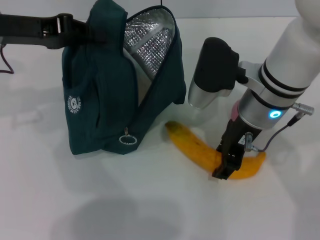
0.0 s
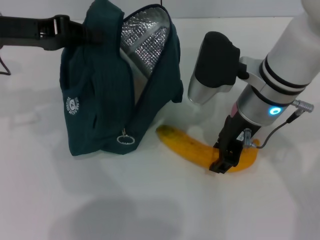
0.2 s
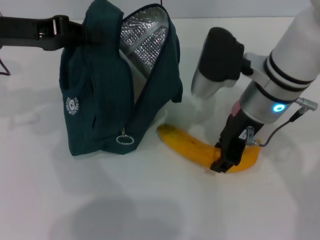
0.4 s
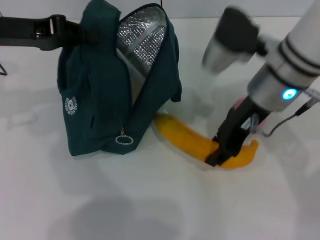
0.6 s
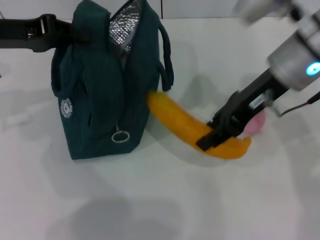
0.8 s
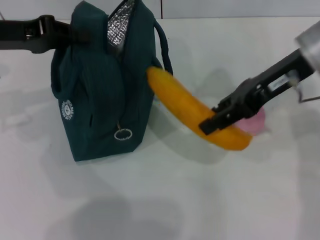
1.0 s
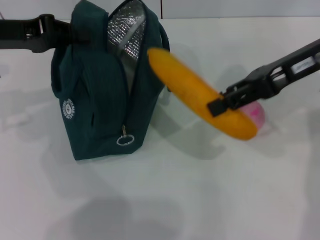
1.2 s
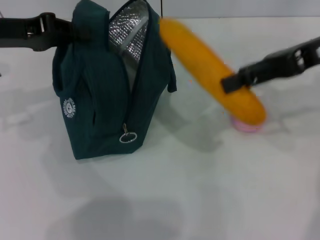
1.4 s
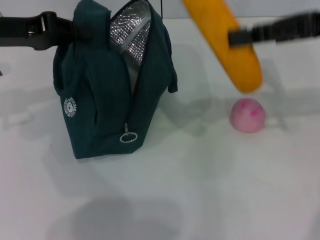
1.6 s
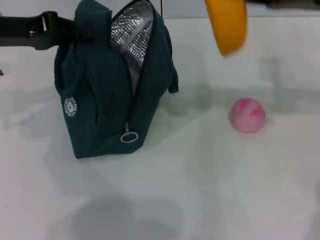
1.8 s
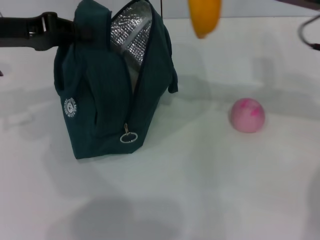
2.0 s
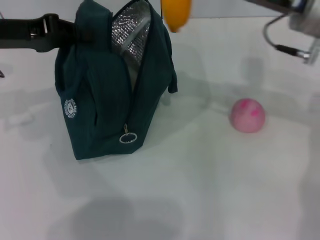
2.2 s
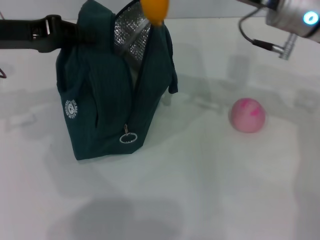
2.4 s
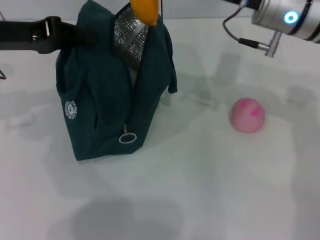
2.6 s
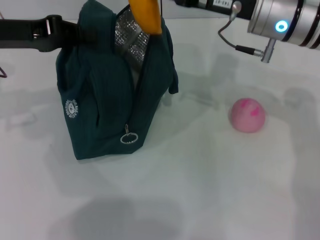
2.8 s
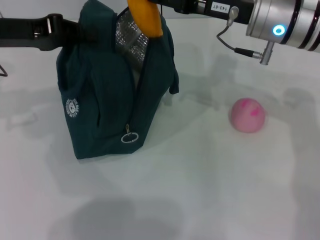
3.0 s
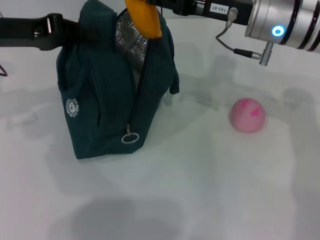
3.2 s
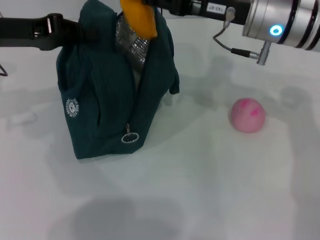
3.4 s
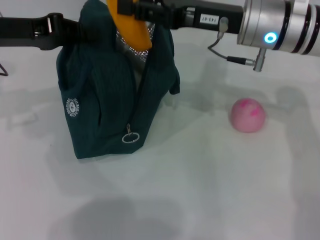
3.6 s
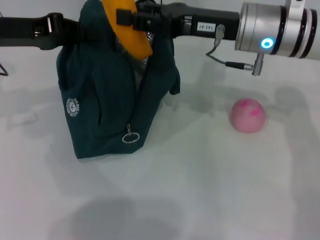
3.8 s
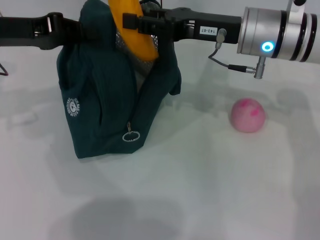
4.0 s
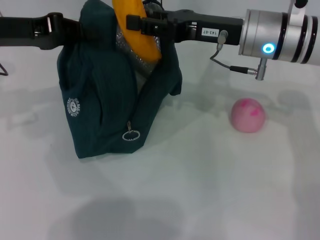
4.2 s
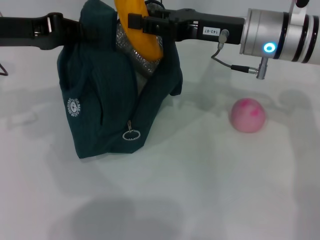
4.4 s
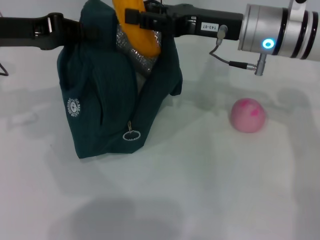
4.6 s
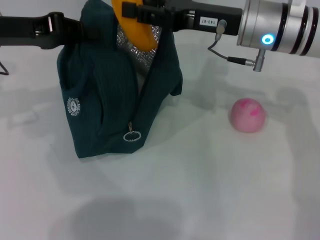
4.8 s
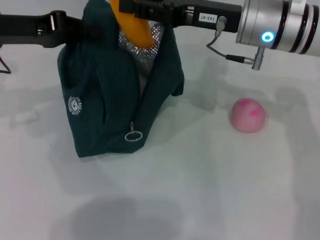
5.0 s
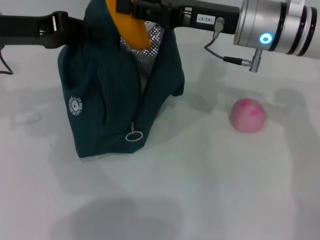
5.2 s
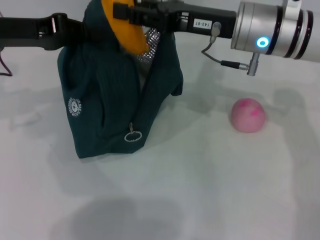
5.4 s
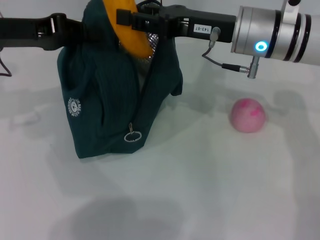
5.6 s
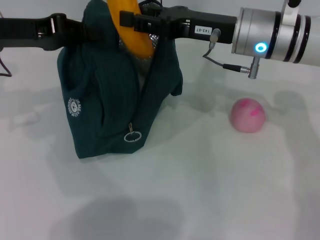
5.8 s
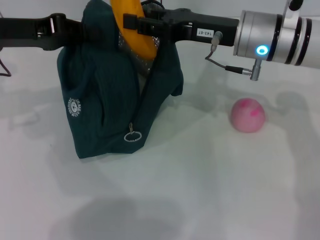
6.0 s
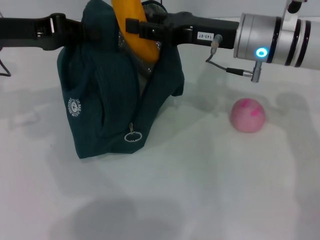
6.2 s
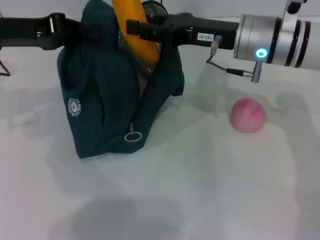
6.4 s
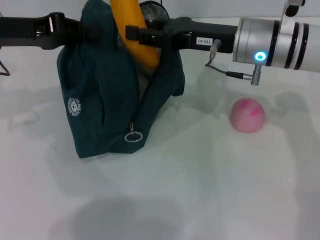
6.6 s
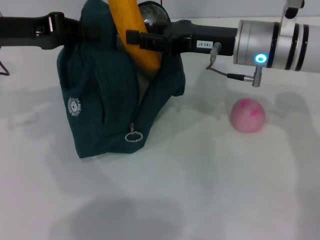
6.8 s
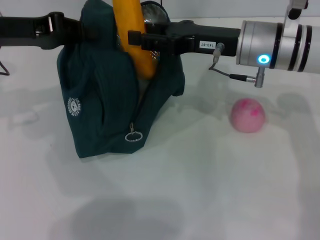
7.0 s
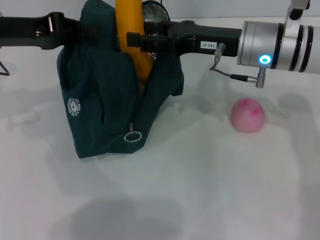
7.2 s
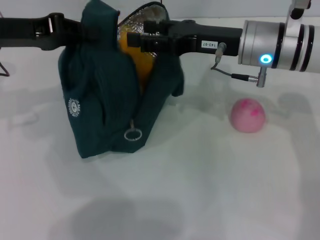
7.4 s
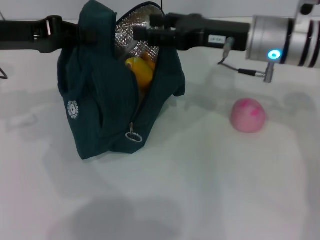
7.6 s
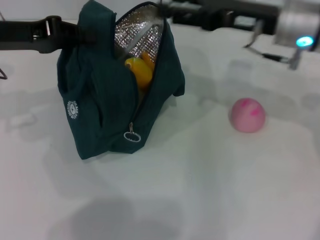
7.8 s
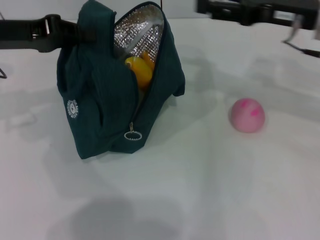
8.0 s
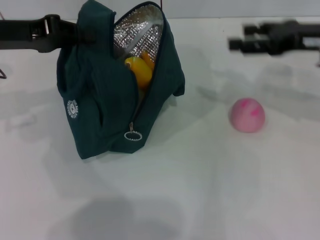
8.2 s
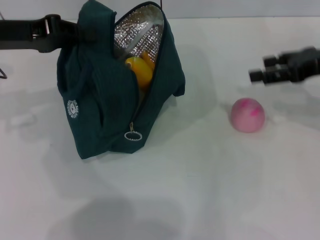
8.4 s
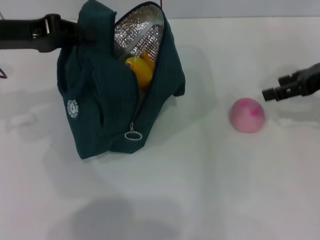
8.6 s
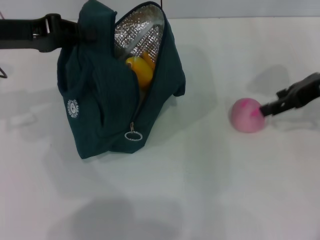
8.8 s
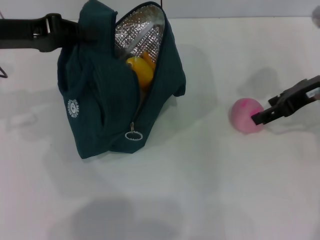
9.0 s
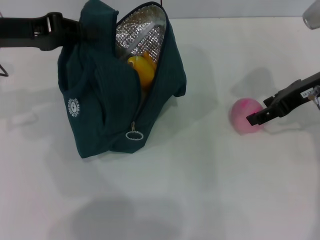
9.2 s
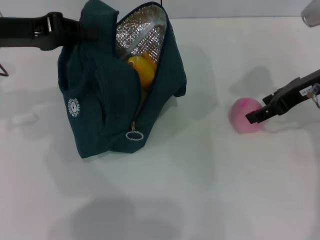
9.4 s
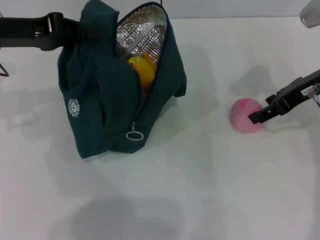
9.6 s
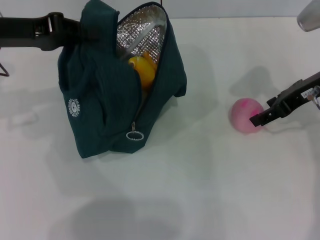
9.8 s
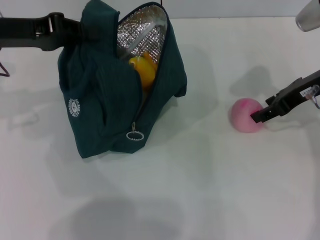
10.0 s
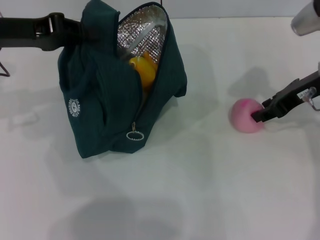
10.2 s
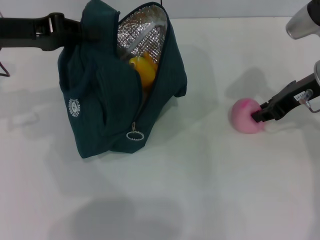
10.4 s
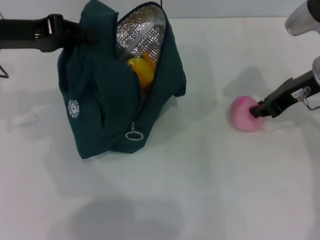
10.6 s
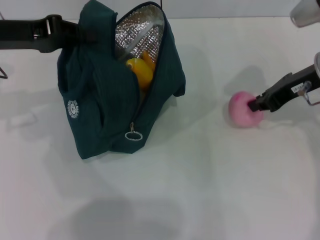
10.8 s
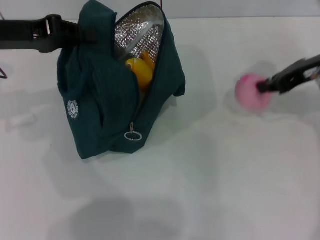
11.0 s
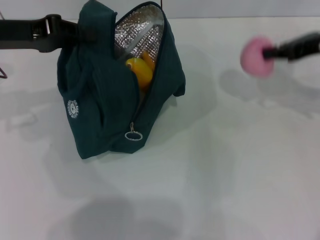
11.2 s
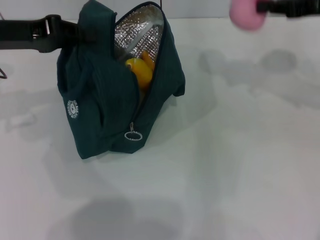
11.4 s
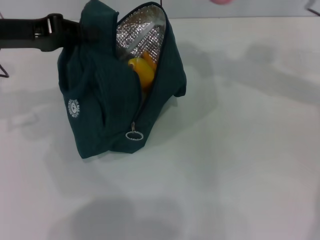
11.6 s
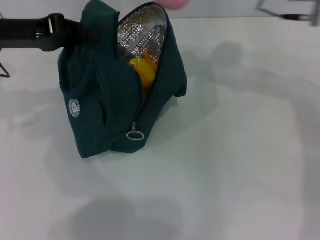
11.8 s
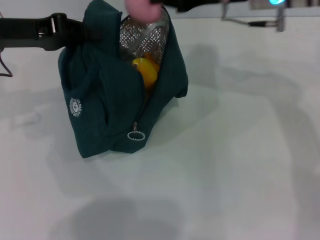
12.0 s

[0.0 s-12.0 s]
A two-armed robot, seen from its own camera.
Step, 0.2 to 7.6 s: Put the banana into the lunch bag with your right hand.
Step, 7.8 to 10.2 s: Grab the peach with your right hand.
0.0 to 1.6 s: The right gripper is displaced to the right and upward by about 15 cm.
1.6 to 3.0 s: The right gripper moves to the left and downward, approximately 10 cm.
3.0 to 6.0 s: The grippers stay close to where they were, moving slightly.
6.0 to 7.6 s: The right gripper opens its fingers.
7.6 to 9.0 s: The right gripper shifts approximately 10 cm to the right.
9.0 to 10.4 s: The grippers move only a little.
10.4 to 12.0 s: The right gripper travels to the left and upward by roughly 10 cm, and closes.

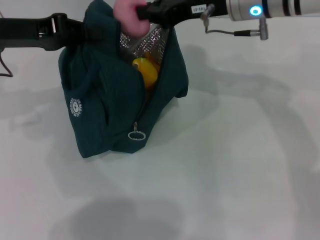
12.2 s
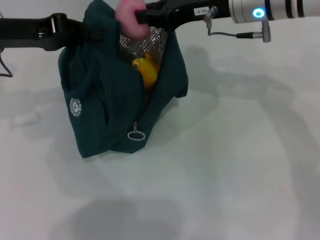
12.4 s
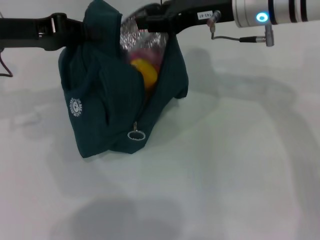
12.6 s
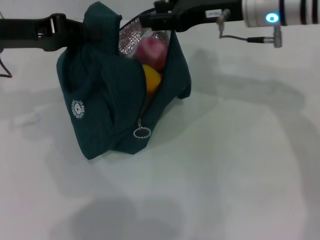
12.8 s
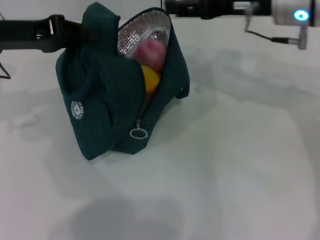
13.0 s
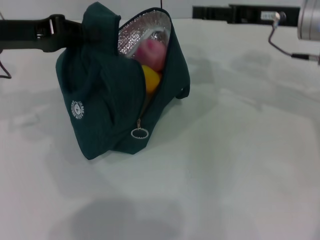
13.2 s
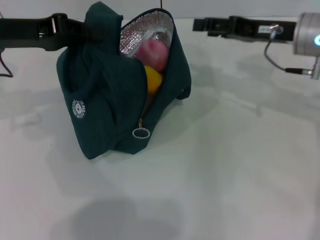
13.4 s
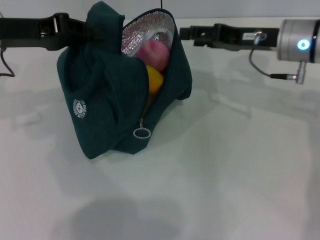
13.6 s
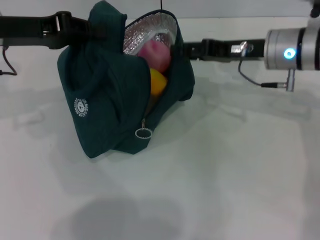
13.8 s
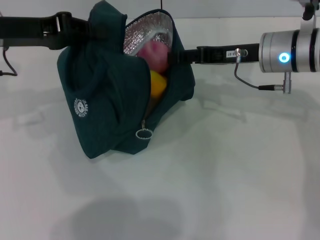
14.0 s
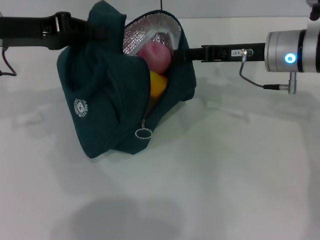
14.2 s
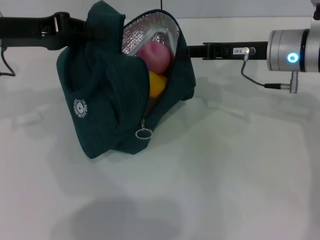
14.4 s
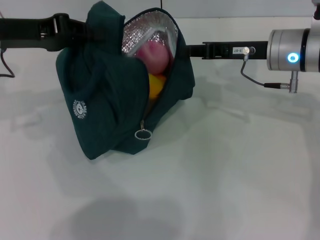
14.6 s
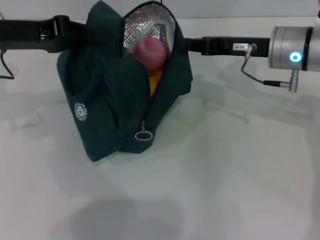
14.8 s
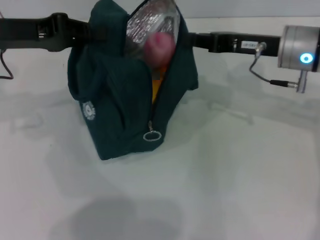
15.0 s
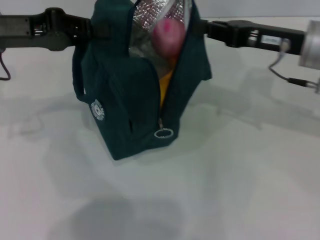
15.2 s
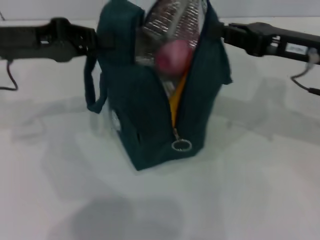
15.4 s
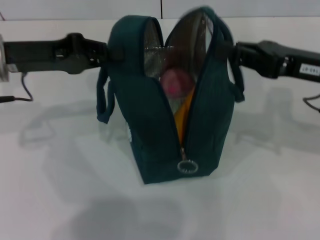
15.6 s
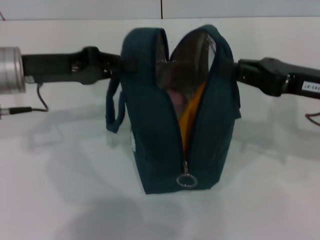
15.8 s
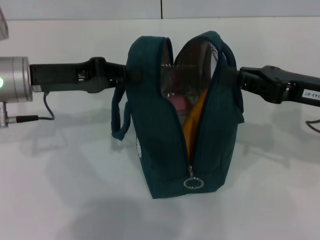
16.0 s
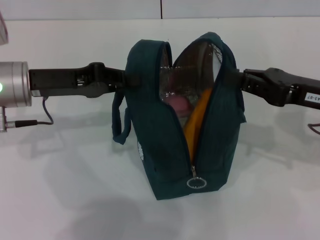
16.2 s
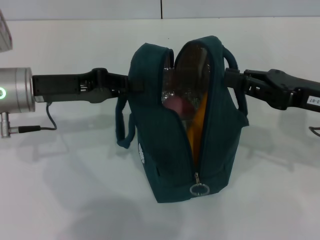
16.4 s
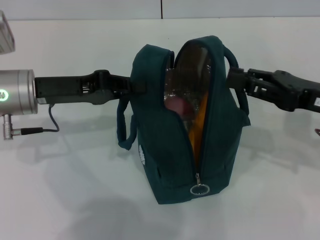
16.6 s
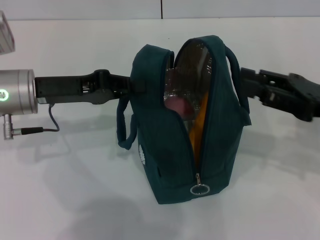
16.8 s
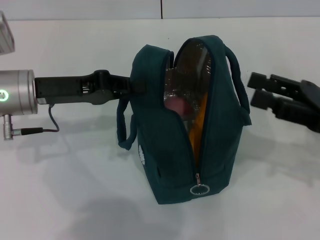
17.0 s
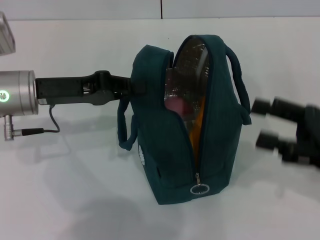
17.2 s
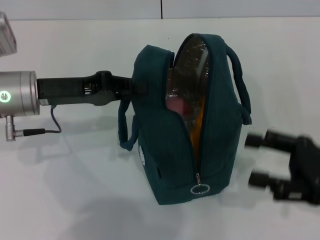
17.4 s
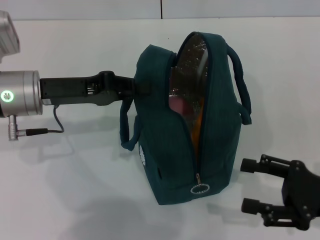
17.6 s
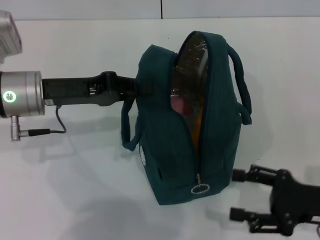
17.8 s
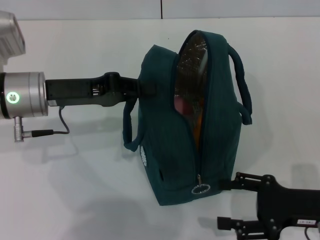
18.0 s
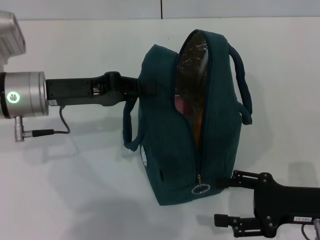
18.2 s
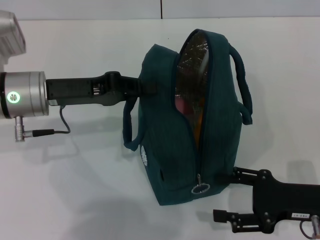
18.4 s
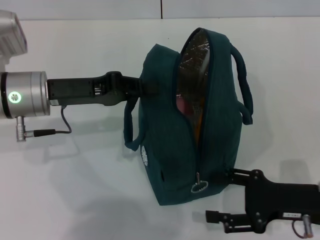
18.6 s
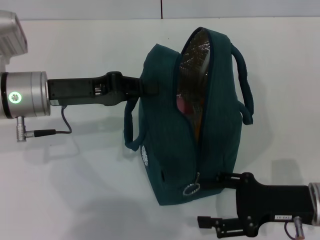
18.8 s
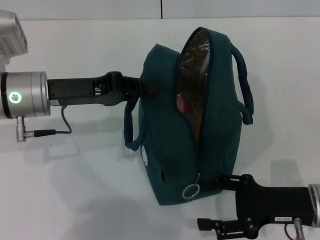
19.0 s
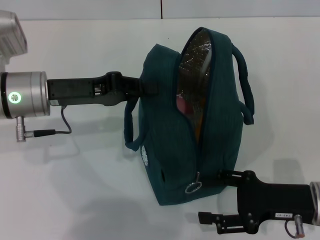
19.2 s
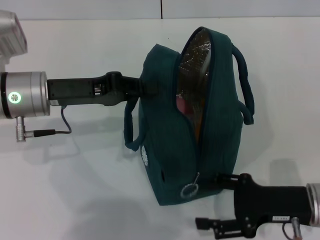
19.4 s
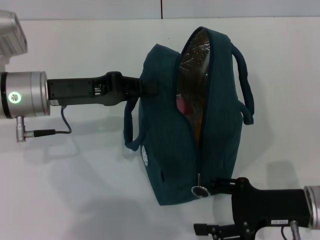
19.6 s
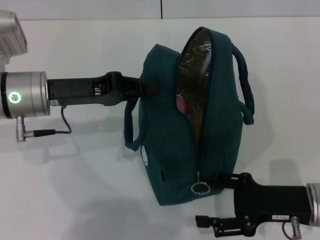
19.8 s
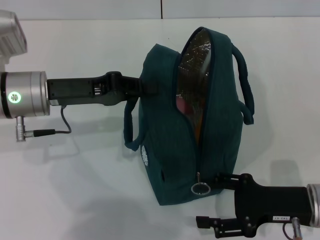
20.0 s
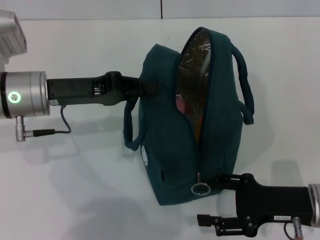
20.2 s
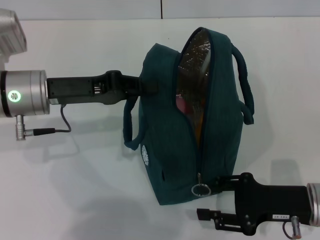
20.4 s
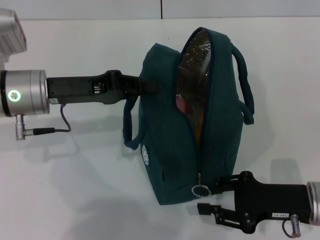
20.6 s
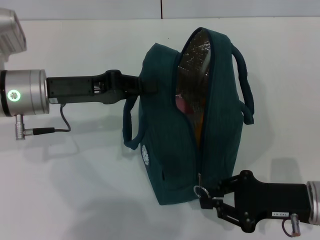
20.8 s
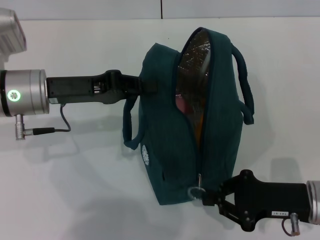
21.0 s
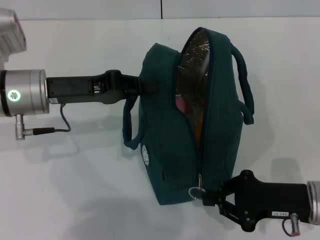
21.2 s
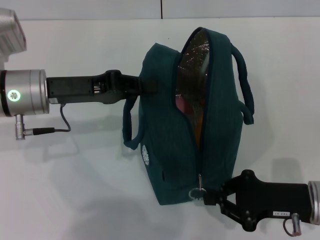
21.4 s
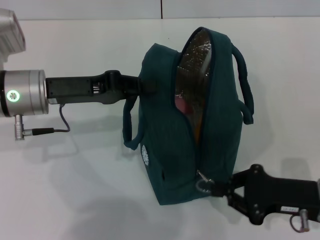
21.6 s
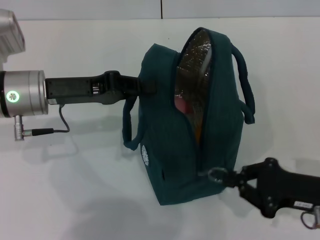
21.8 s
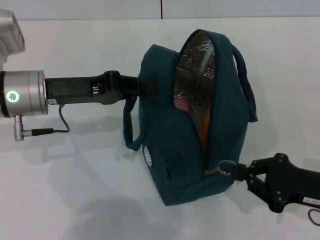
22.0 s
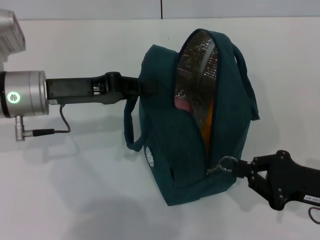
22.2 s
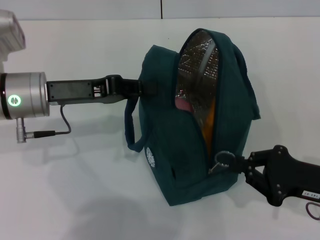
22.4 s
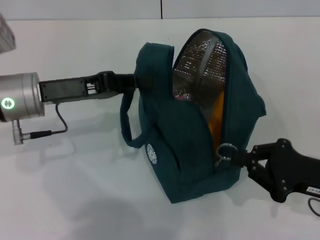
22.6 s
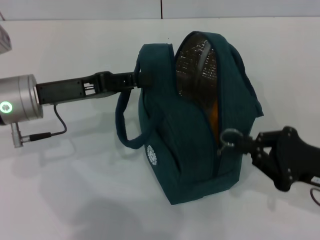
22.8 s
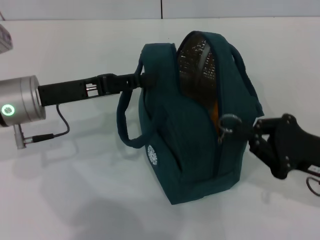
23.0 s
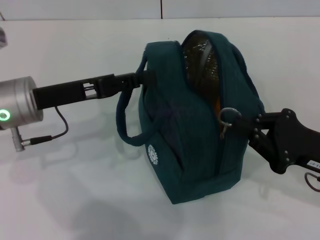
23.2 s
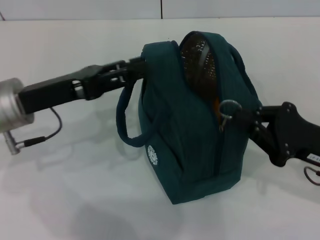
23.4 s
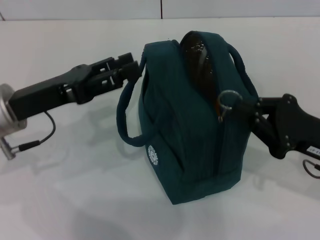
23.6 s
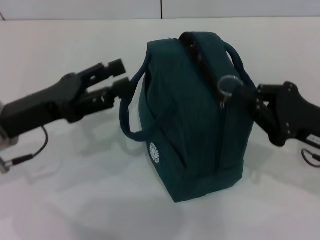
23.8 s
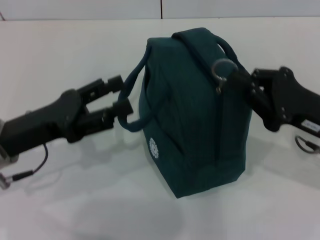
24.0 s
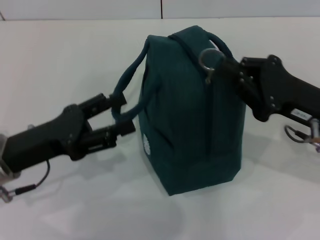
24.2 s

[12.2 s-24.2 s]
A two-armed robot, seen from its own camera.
Step, 13.0 to 16.6 s: Hold the lunch bag with your right hand.
Step, 17.0 to 23.2 s: Hold the lunch bag with your left hand.
12.2 to 13.8 s: The right gripper goes some 10 cm downward and to the right, and opens its fingers.
13.8 to 15.2 s: The right gripper moves roughly 5 cm, and closes up.
15.2 to 16.6 s: The left gripper travels downward by approximately 10 cm; the right gripper shifts some 10 cm backward and to the right.
16.6 to 18.2 s: The right gripper moves downward and backward, about 10 cm, and opens up.
18.2 to 19.8 s: The grippers move only a little.
19.8 to 21.2 s: The right gripper closes up.
22.6 to 24.2 s: The left gripper heads backward, covering approximately 10 cm, and opens, while the right gripper shifts about 10 cm forward and upward.
